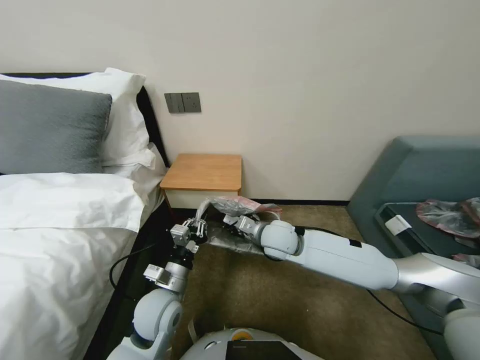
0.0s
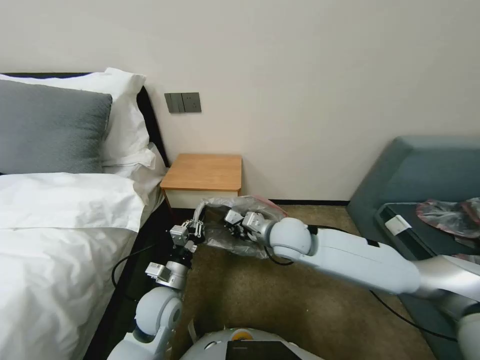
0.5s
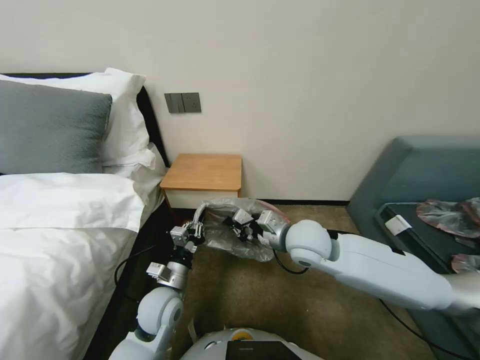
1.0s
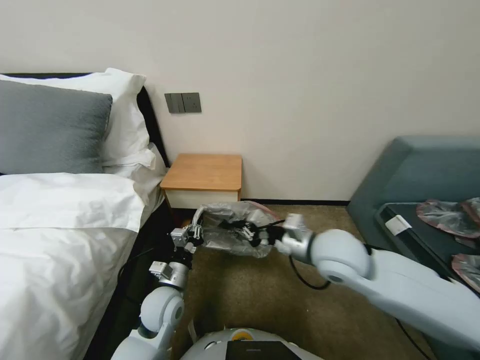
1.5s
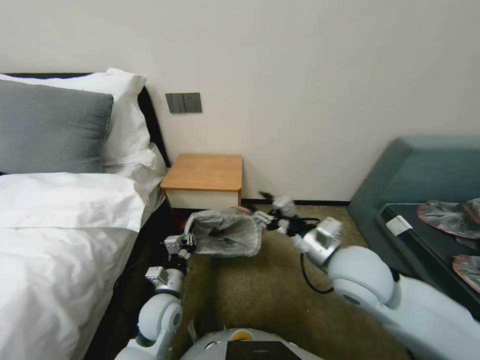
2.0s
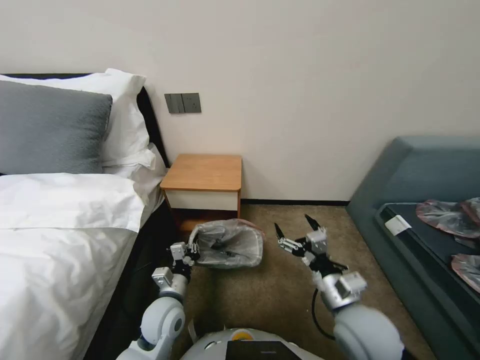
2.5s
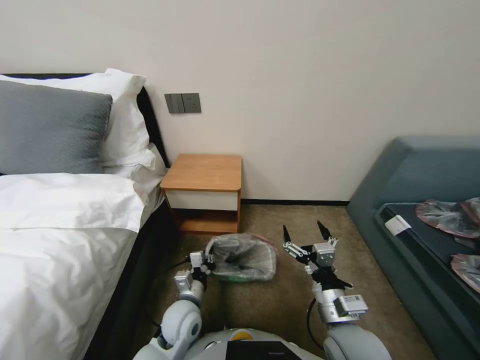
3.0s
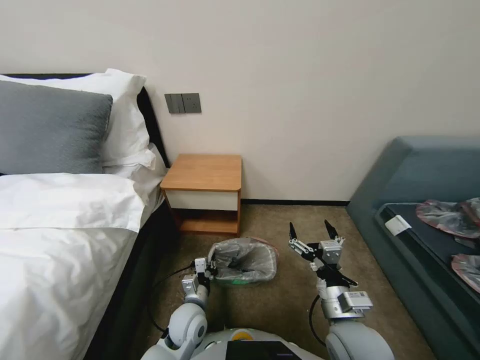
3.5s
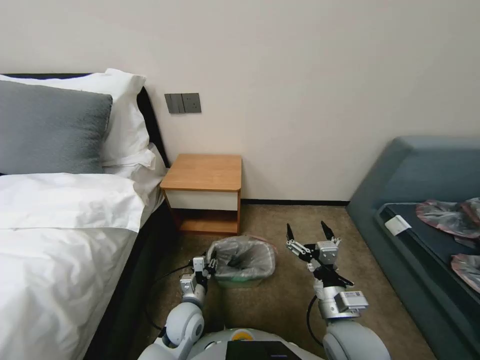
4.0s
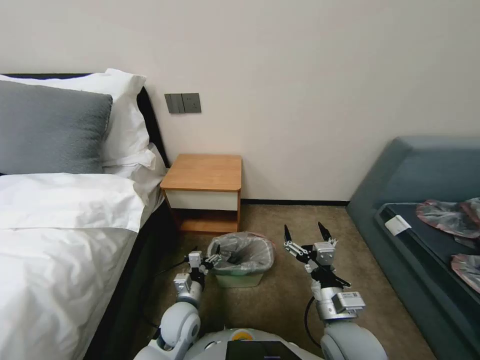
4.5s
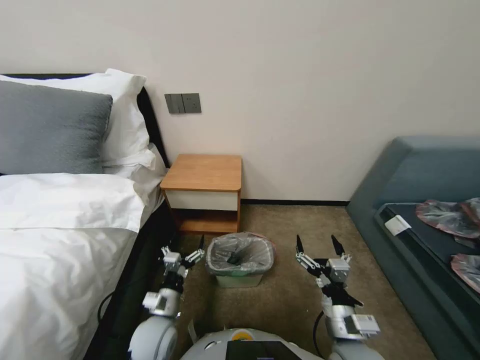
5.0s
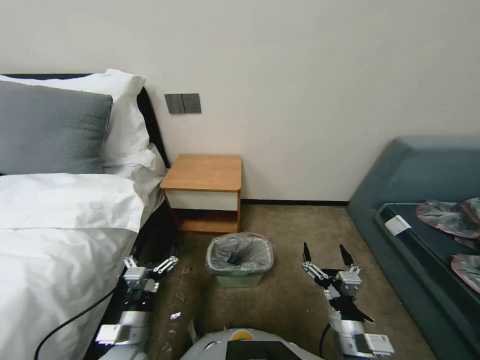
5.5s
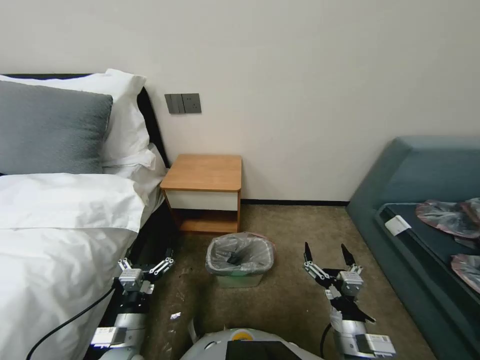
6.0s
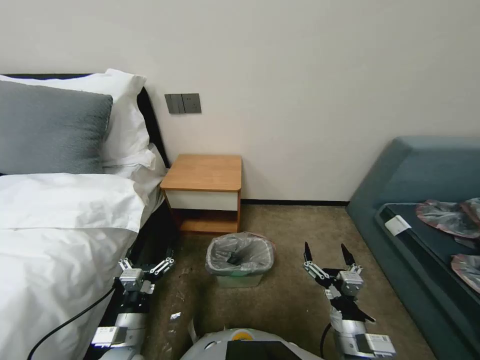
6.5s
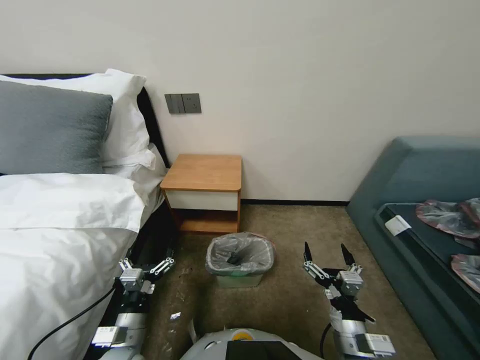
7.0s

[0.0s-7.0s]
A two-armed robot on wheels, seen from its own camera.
Task of the whole recording: Pick up the garbage bag from the table and place it over the trash can.
0.0s to 2.0s: The right gripper heads backward, to the right and upward, covering some 15 cm, and opens, while the left gripper moves approximately 5 cm.
2.0s to 3.5s: The left gripper goes about 10 cm to the right and downward, while the right gripper is displaced downward and backward by roughly 15 cm, and opens.
3.5s to 5.0s: The left gripper moves to the left, roughly 5 cm, and opens up.
5.0s to 7.0s: The left gripper goes about 5 cm backward.

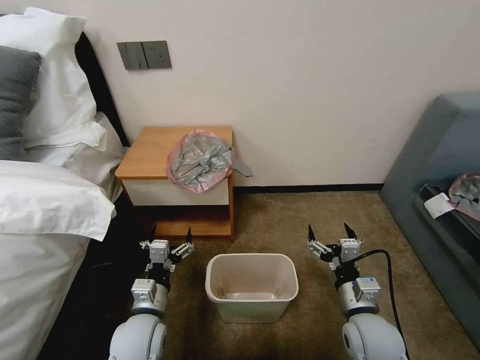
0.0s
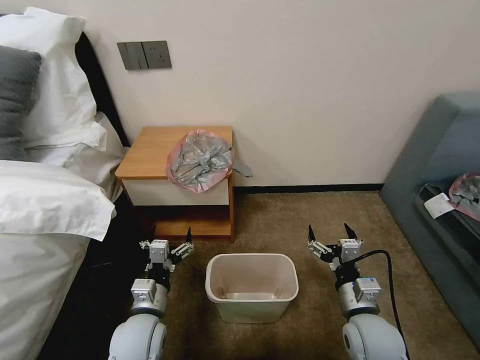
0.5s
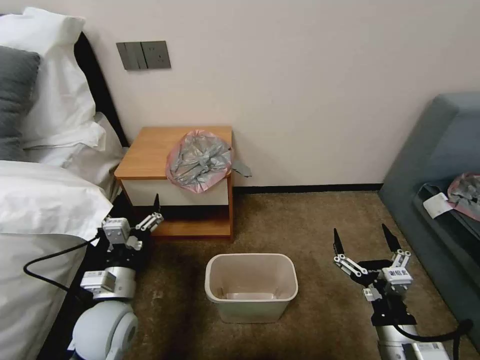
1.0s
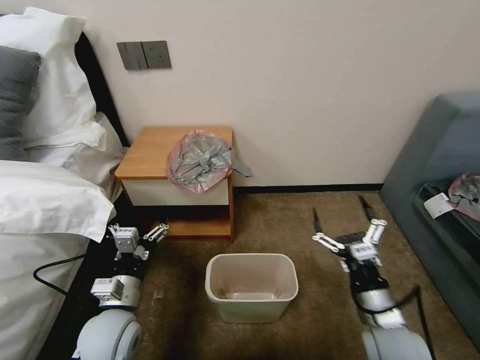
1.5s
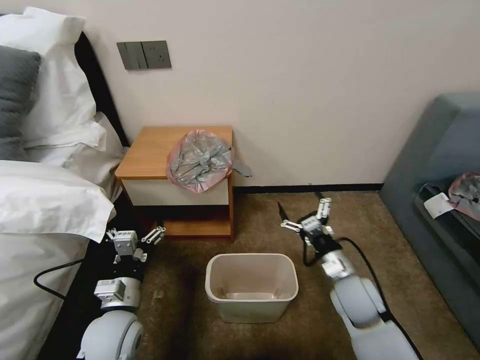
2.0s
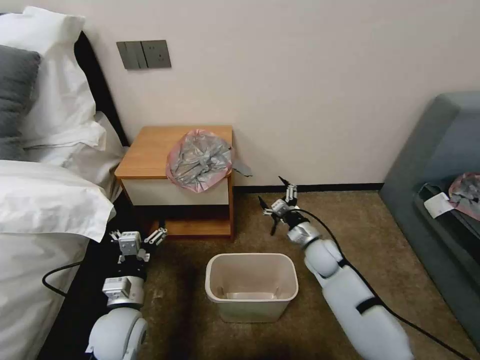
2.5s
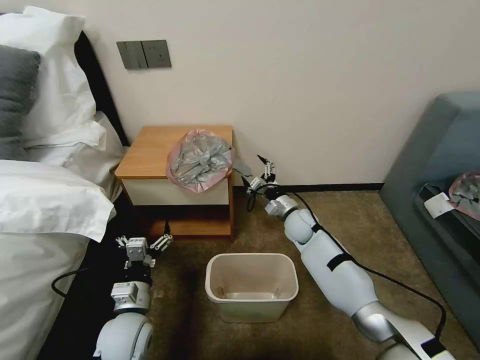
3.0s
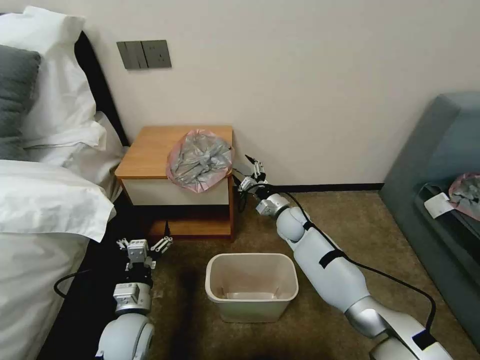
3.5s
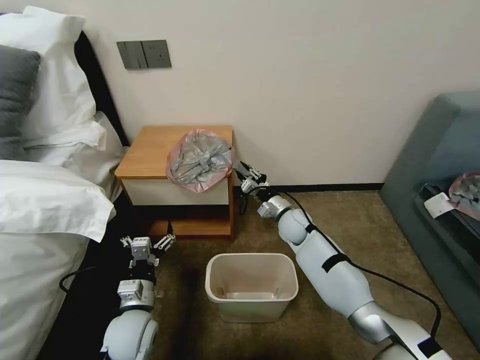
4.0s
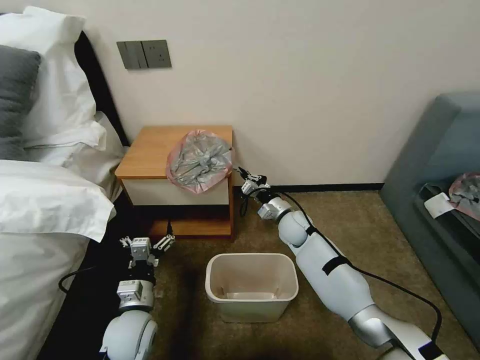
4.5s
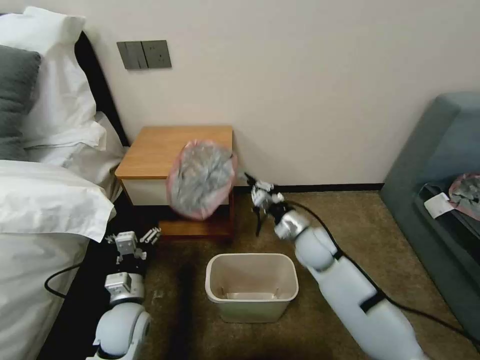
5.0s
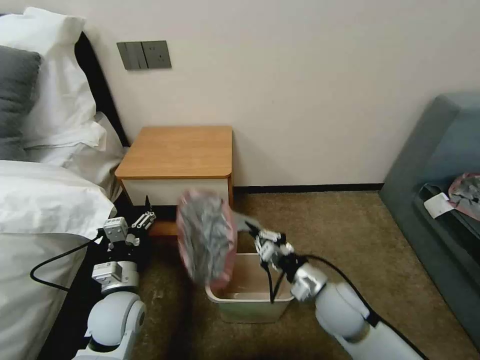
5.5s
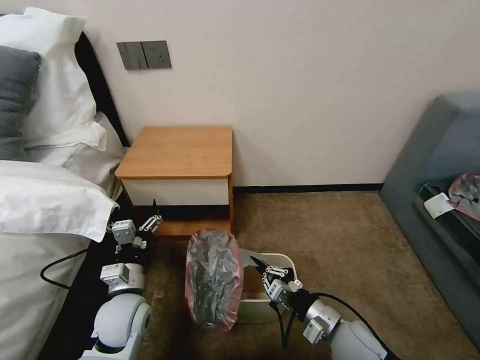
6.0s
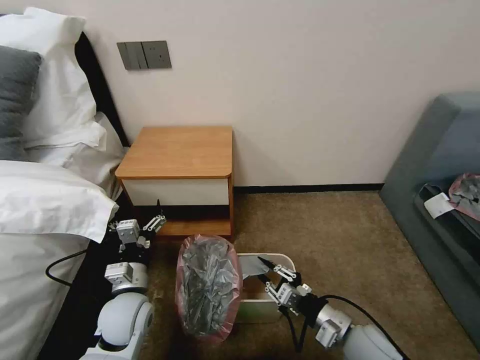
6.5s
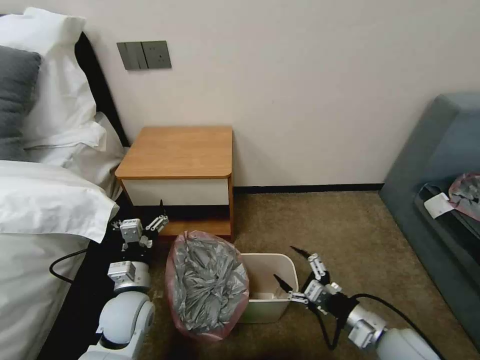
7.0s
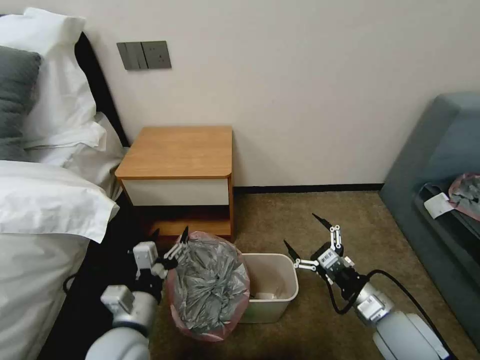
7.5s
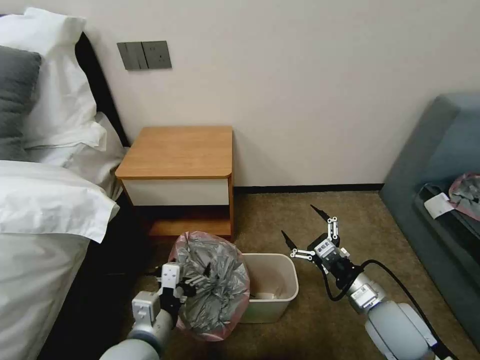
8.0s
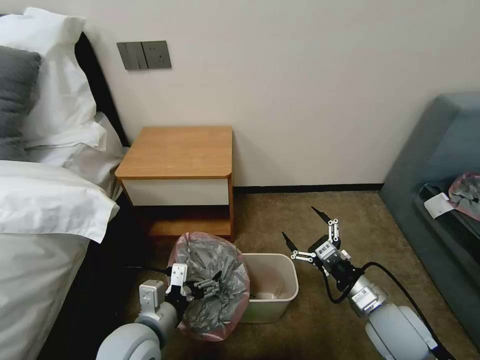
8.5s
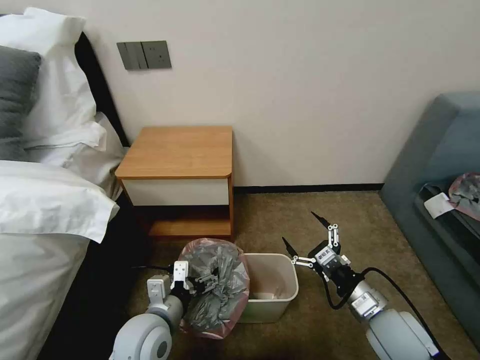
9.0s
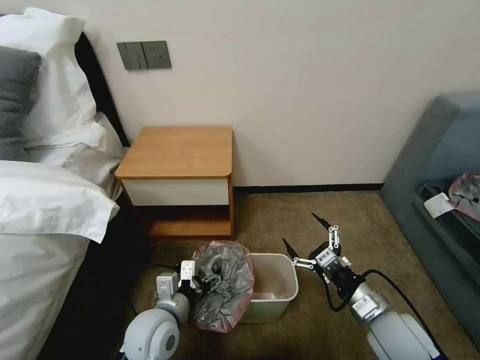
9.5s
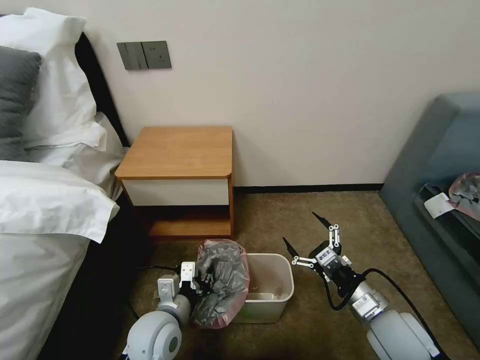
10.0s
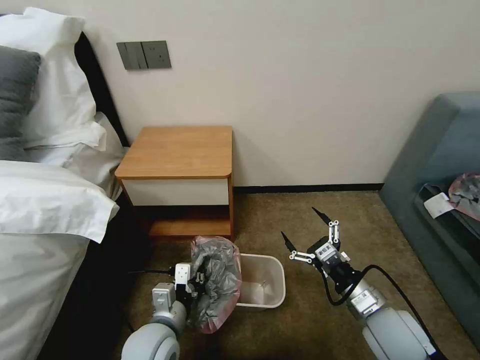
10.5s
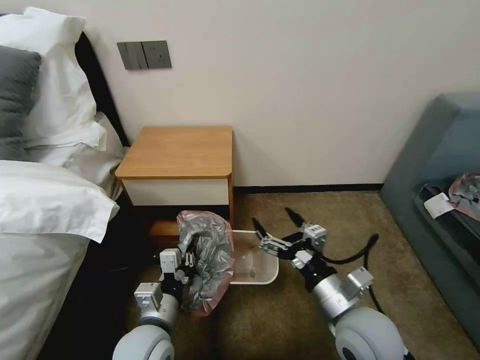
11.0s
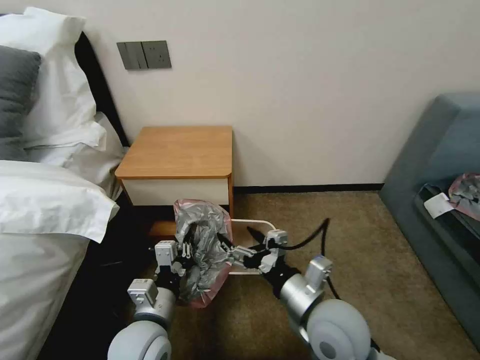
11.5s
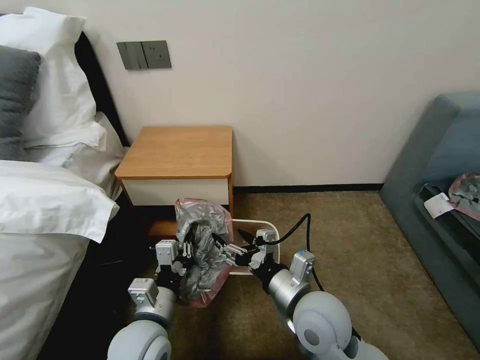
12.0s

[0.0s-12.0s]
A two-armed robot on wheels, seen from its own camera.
Task of the whole recording: Pick up the garbage bag from the table and place it over the trash can.
2.0s to 4.0s: The left gripper changes place by about 5 cm; the right gripper goes some 20 cm forward and to the left, and closes its fingers.
4.0s to 6.0s: The right gripper is displaced backward by roughly 30 cm.
6.0s to 8.0s: The right gripper heads to the right and upward, covering some 10 cm, and opens up. The left gripper moves backward and to the right, some 10 cm.
8.0s to 10.0s: The left gripper heads forward and downward, covering about 10 cm, and closes.
10.0s to 12.0s: The right gripper moves to the left, about 15 cm, while the left gripper moves approximately 5 cm.

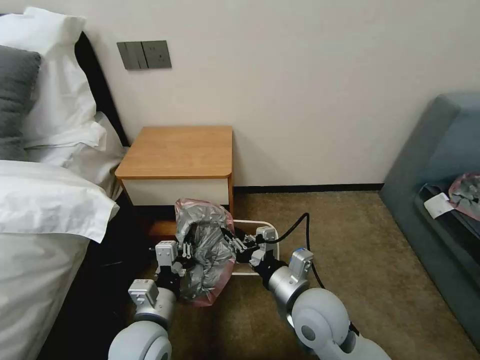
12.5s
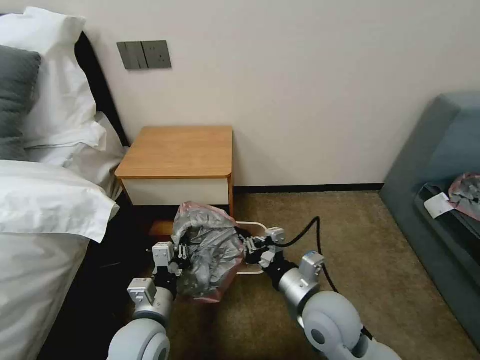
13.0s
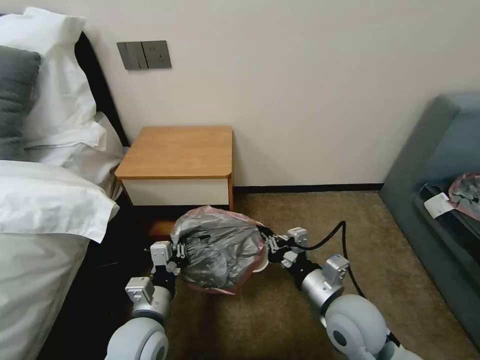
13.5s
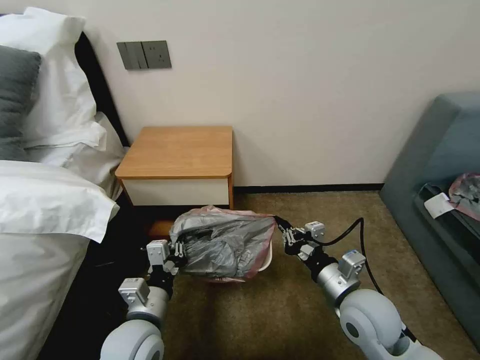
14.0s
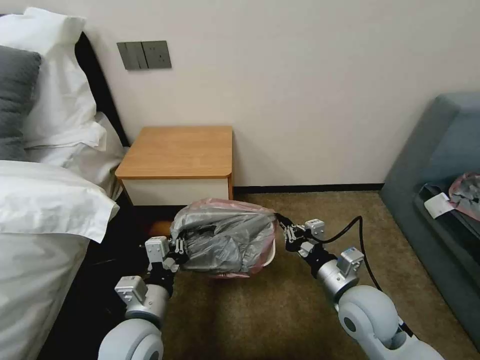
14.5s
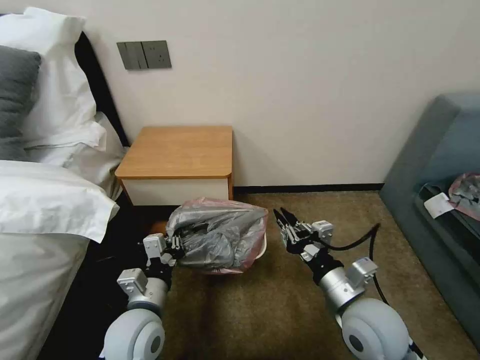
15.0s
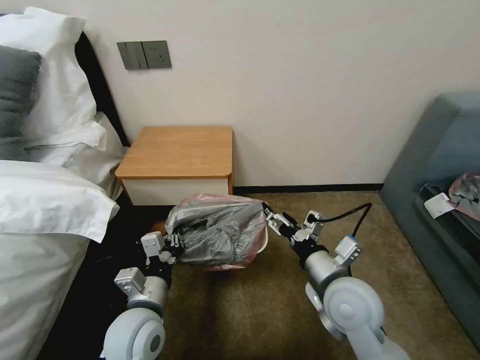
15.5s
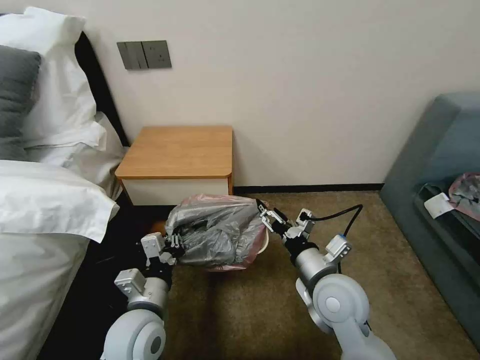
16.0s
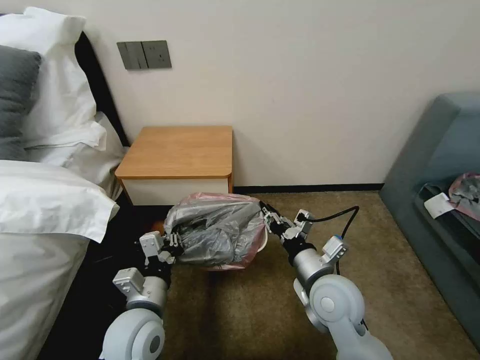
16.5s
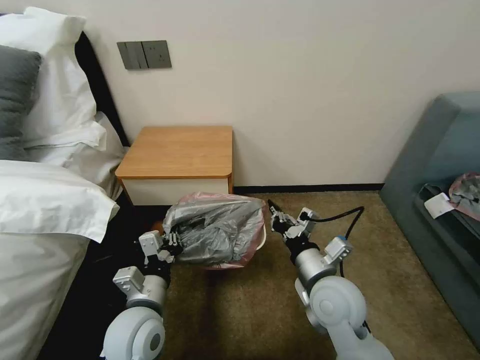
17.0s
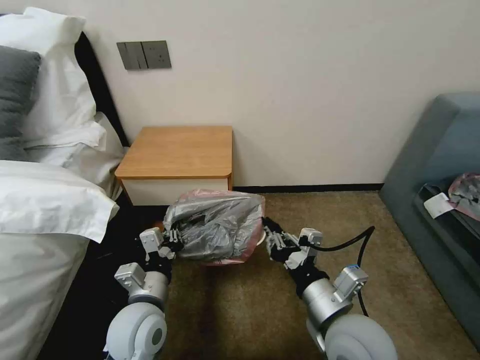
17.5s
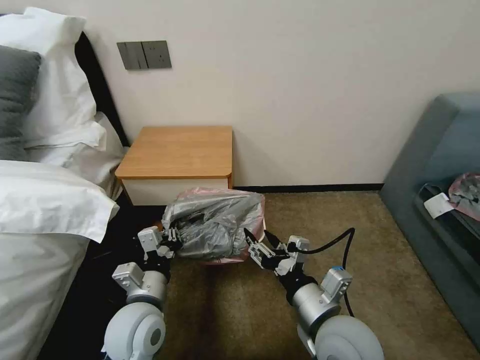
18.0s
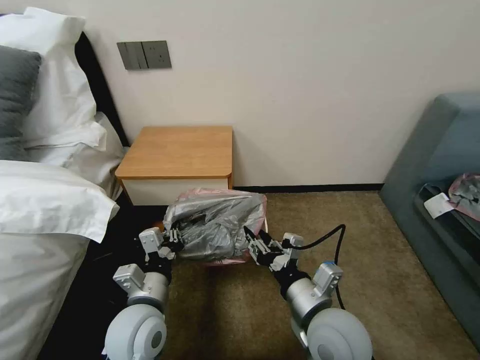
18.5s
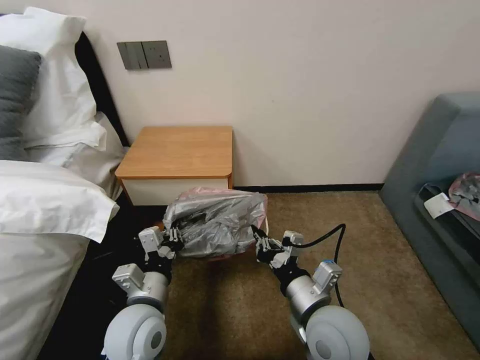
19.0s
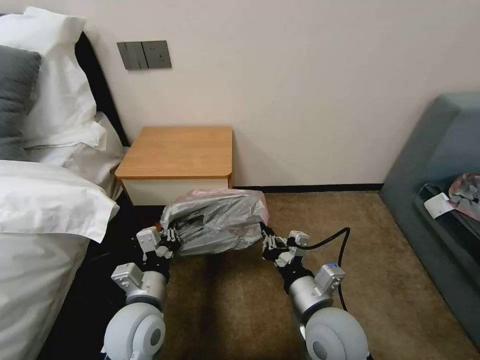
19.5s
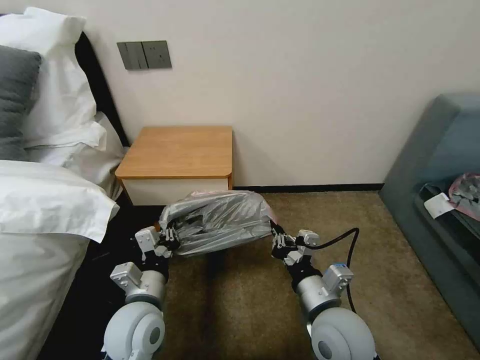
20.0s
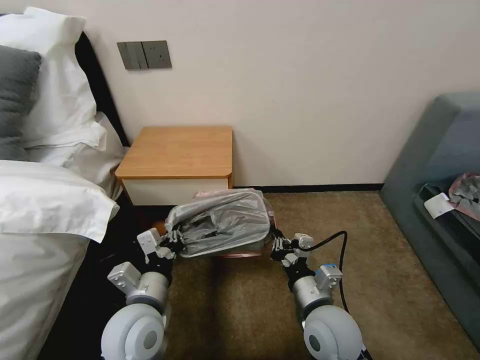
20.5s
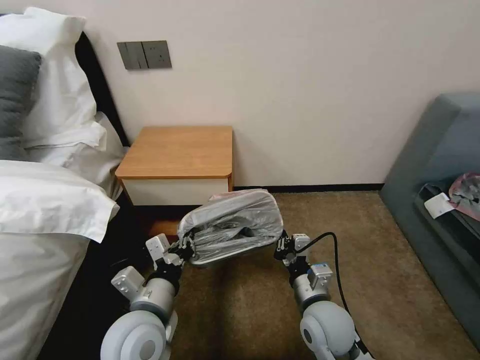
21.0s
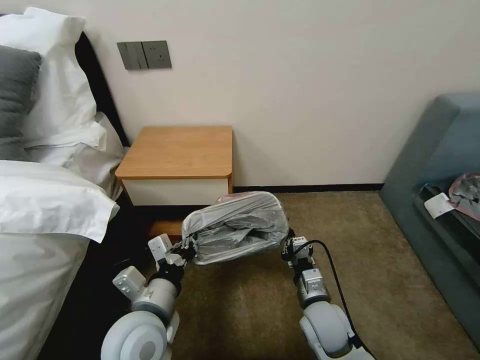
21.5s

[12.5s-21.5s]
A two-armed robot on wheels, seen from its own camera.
Task of the whole recording: Pick up the garbage bag from the table and place it over the trash can.
12.5s to 14.5s: The right gripper travels to the right by some 10 cm.
14.5s to 17.0s: The right gripper goes about 5 cm to the left, and opens, then closes once more.
17.0s to 19.5s: The right gripper goes about 5 cm backward, and opens and closes again.
19.5s to 21.5s: The right gripper shifts approximately 10 cm downward.
